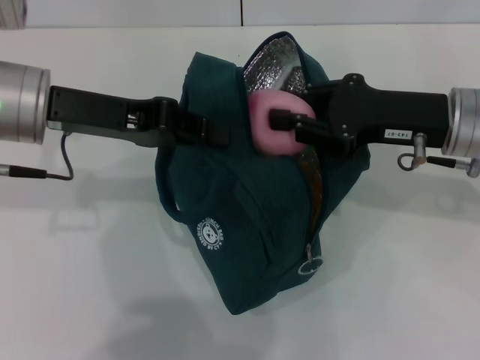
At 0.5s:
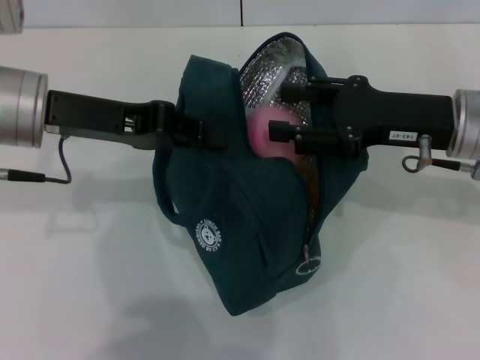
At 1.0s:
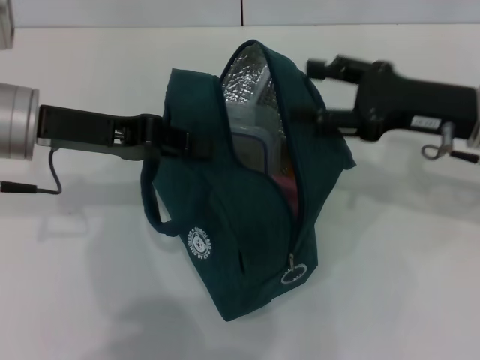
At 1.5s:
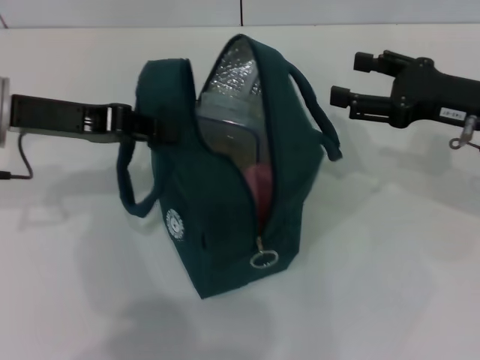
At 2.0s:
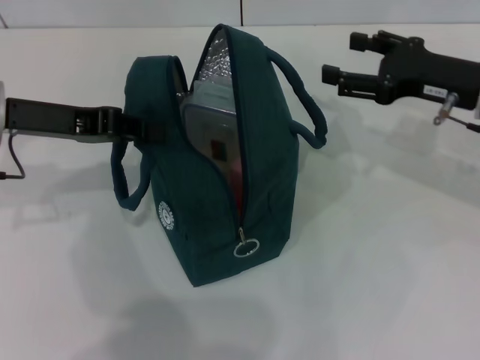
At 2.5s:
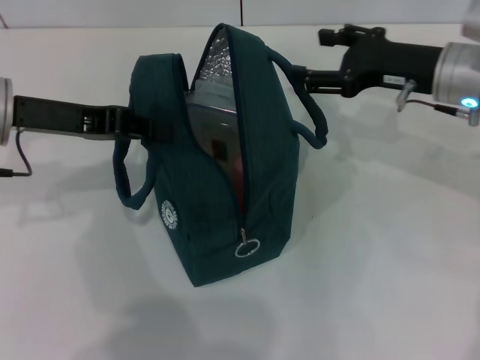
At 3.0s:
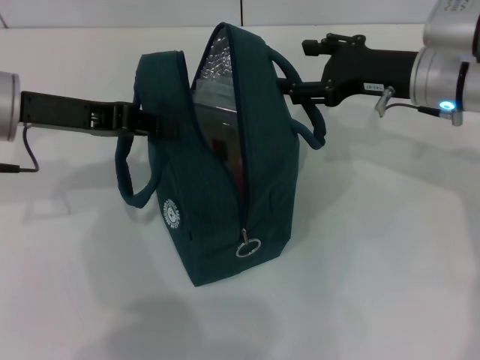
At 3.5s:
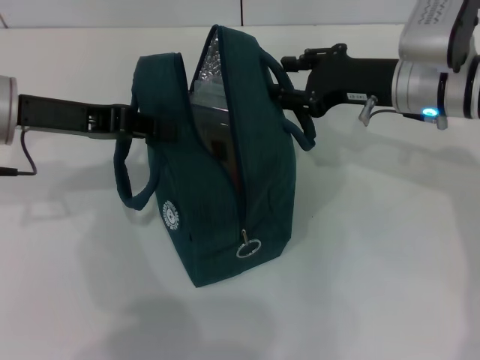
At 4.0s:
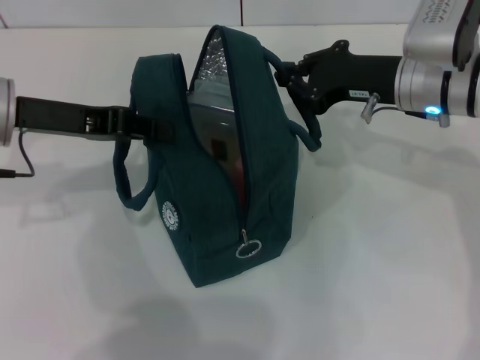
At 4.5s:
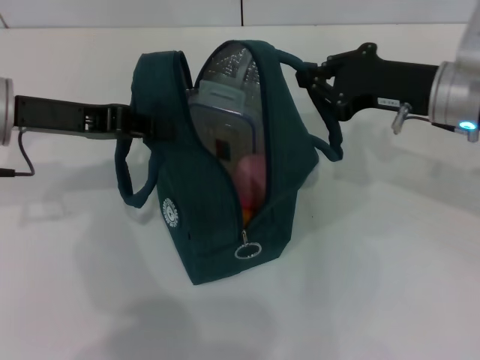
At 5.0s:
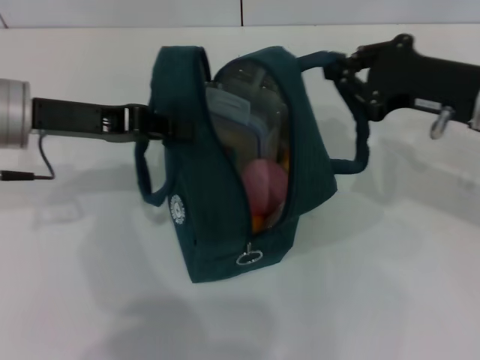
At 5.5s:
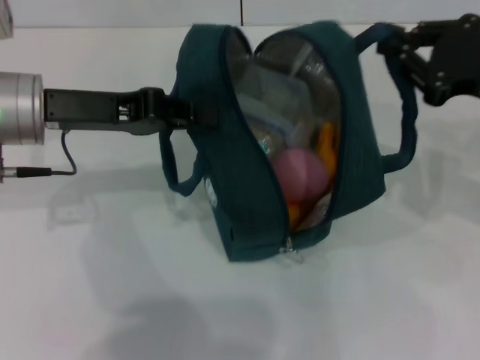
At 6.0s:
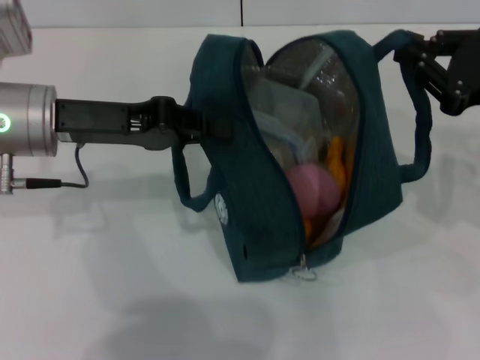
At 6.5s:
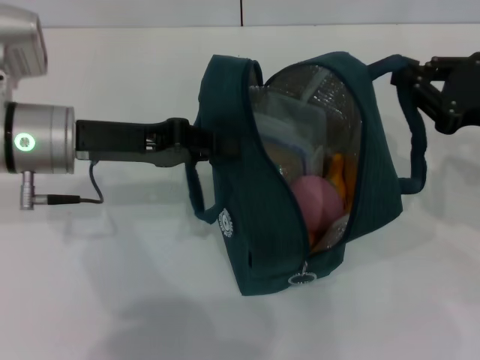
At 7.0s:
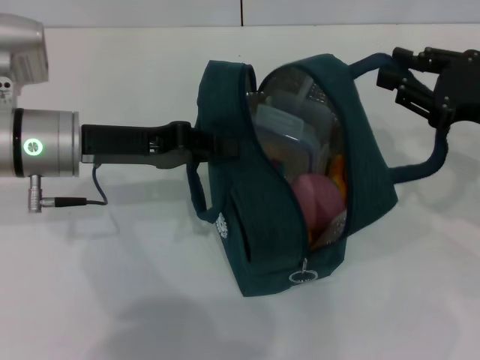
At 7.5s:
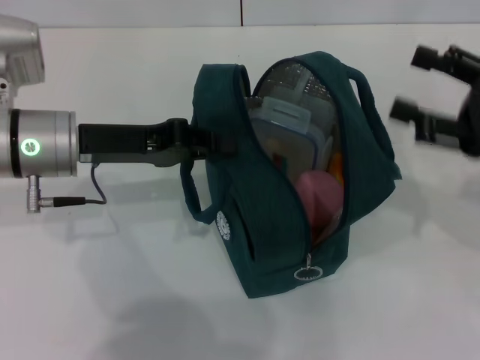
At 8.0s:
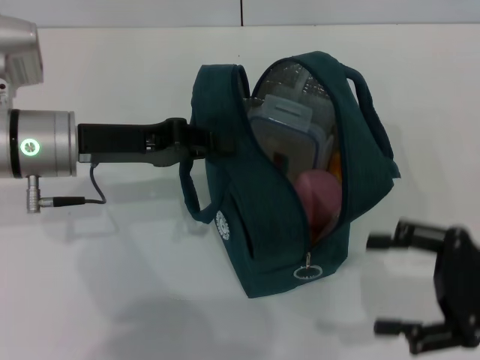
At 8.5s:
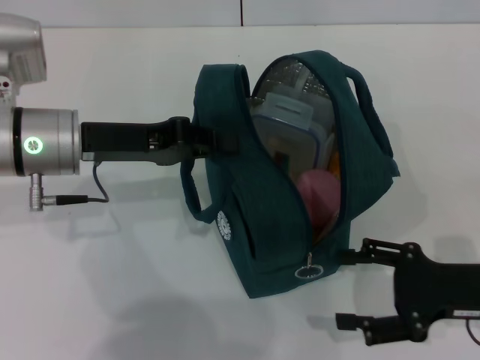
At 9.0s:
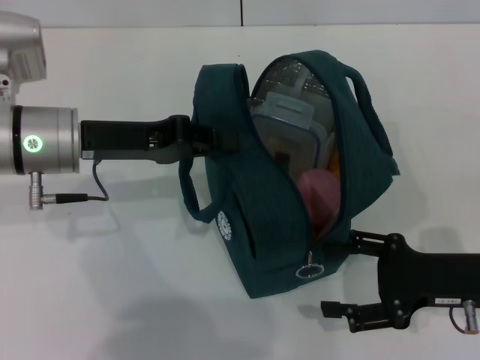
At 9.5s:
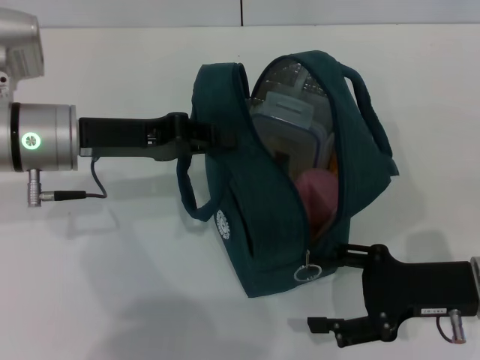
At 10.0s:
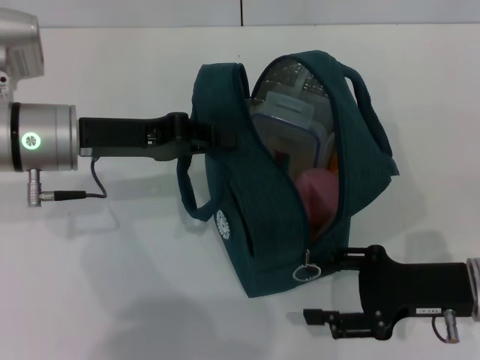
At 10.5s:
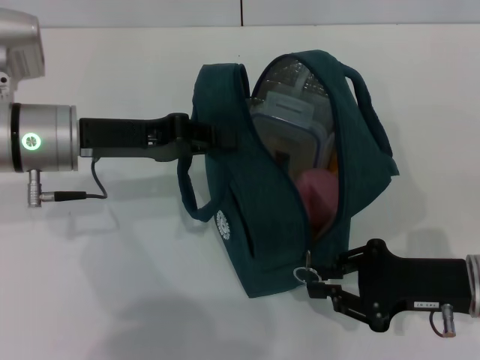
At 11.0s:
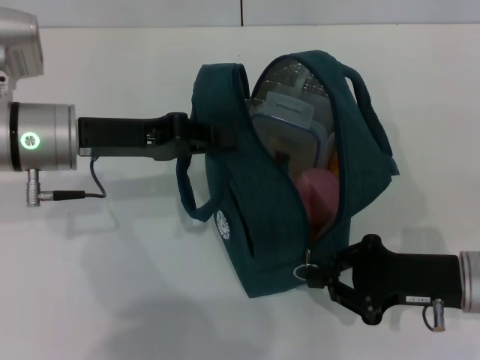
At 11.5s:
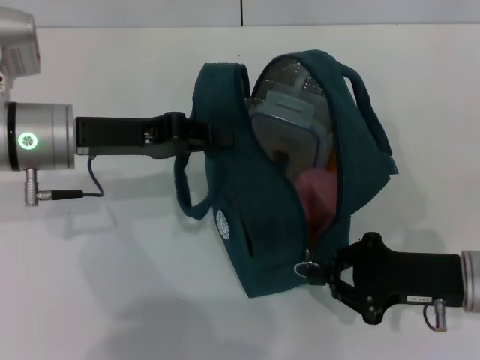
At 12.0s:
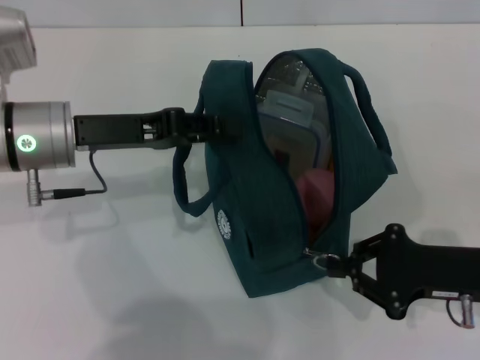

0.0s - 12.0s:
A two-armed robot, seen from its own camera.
Step, 1.0s - 7.0s: Hold the lunch bag with your right hand.
0.0s - 2.0s: The left gripper ends up roughly 5 cm from where it was. Meanwhile the right gripper moves about 5 cm, and opens its fingers.
2.0s - 4.0s: The right gripper travels to the left by approximately 5 cm, and closes up.
4.0s - 6.0s: The right gripper is displaced to the right and backward by about 15 cm.
6.0s - 8.0s: The right gripper heads backward and downward, covering about 10 cm, and opens its fingers.
8.0s - 10.0s: The right gripper travels downward by roughly 5 cm.
10.0s - 12.0s: The right gripper closes.

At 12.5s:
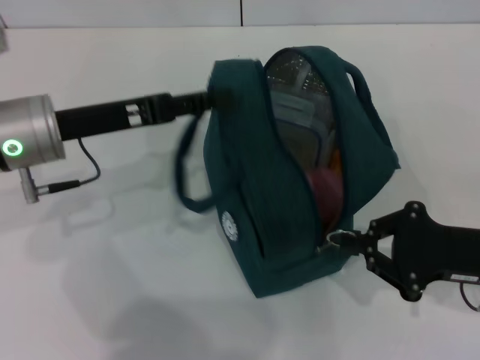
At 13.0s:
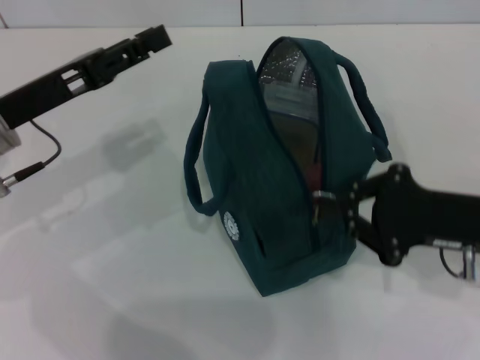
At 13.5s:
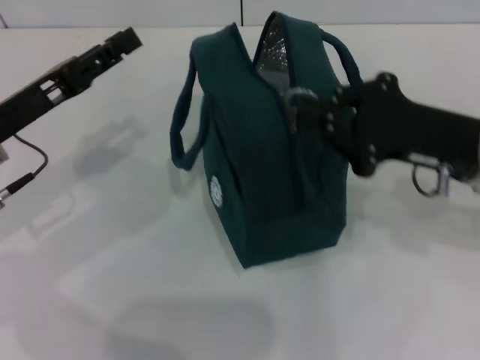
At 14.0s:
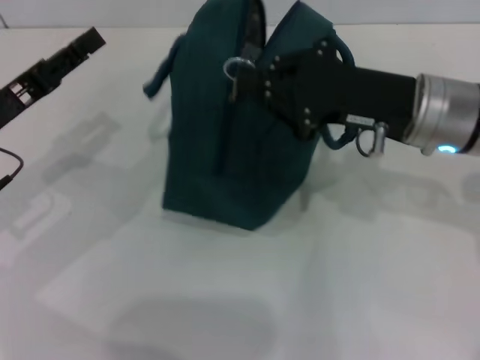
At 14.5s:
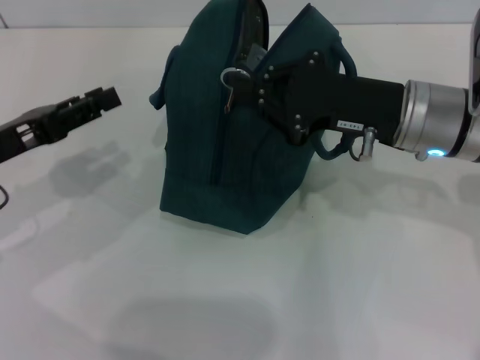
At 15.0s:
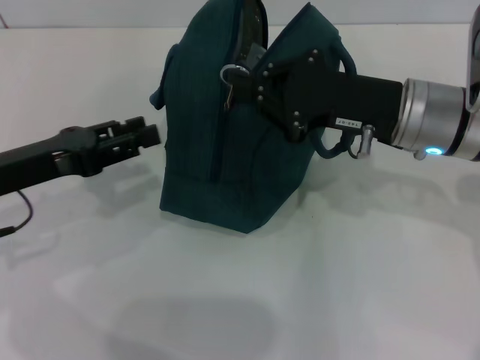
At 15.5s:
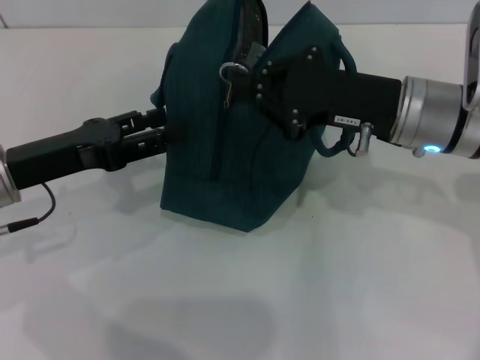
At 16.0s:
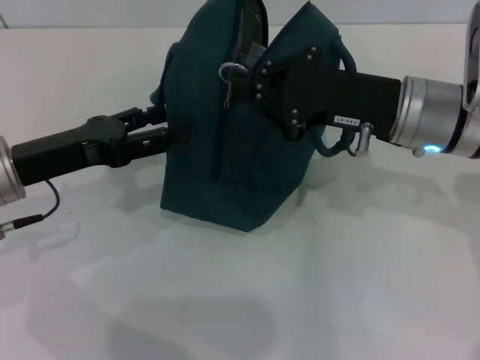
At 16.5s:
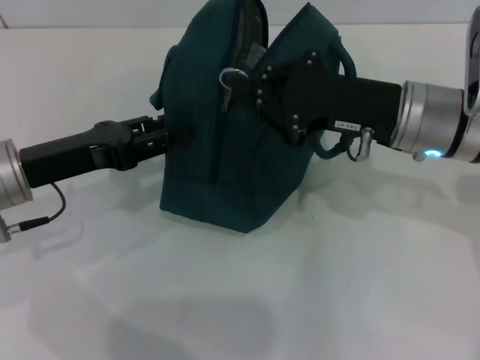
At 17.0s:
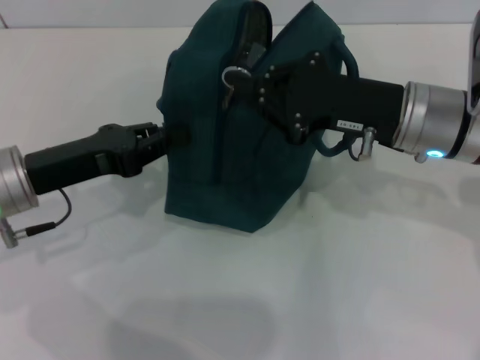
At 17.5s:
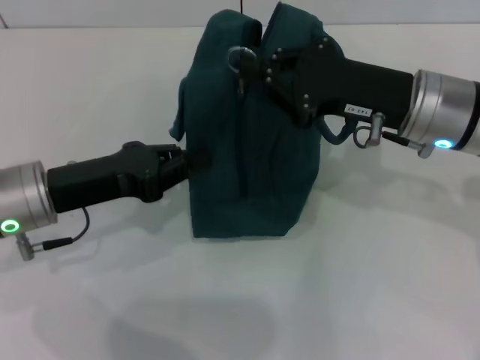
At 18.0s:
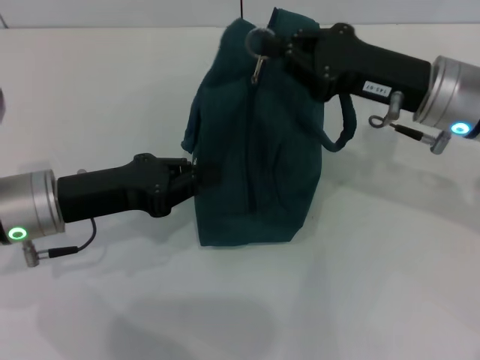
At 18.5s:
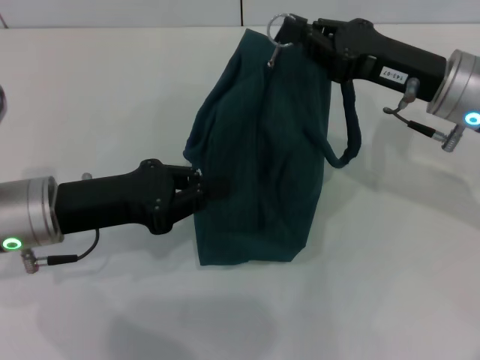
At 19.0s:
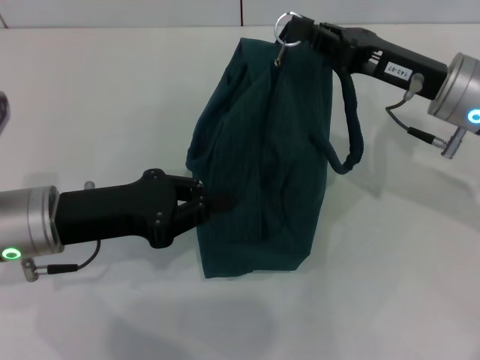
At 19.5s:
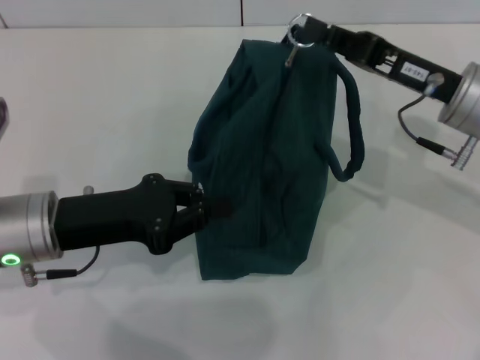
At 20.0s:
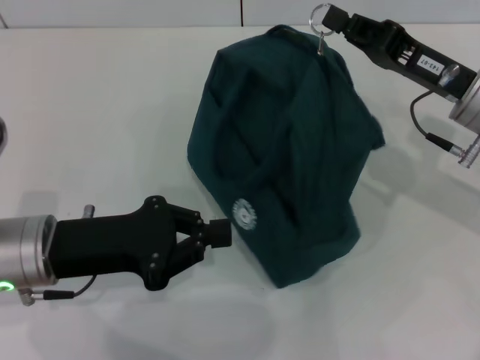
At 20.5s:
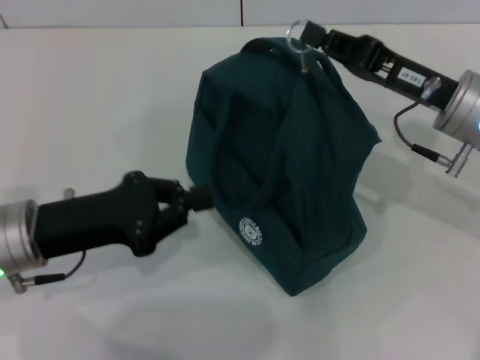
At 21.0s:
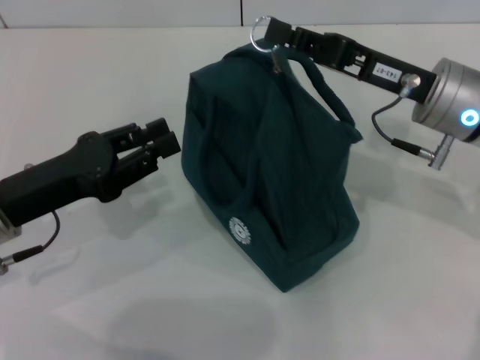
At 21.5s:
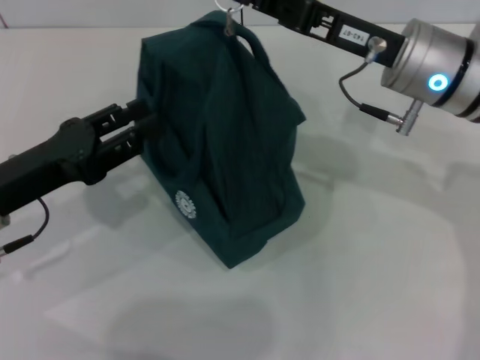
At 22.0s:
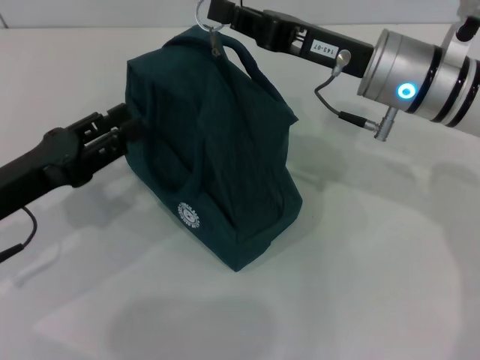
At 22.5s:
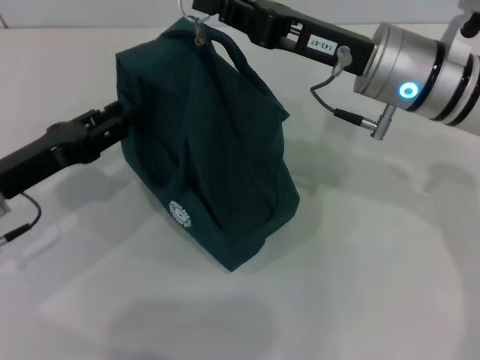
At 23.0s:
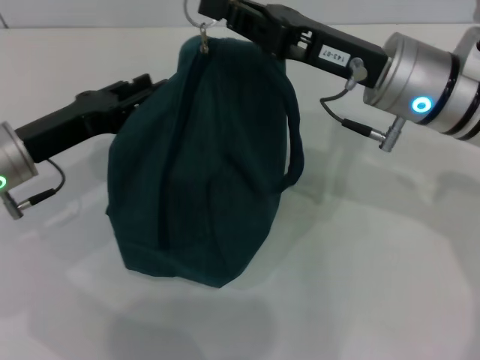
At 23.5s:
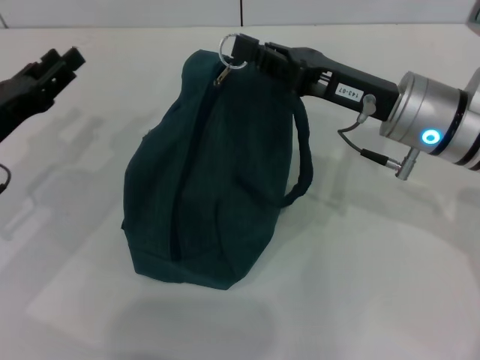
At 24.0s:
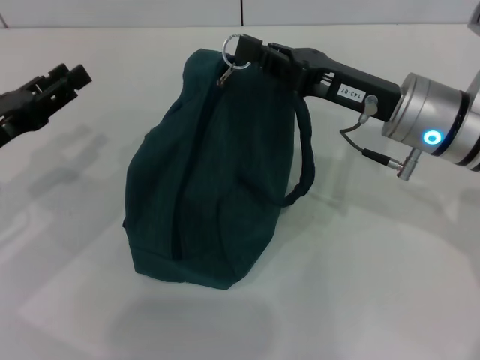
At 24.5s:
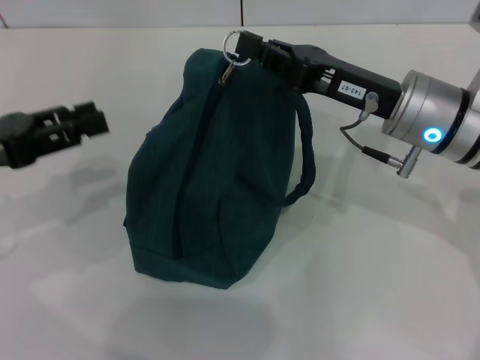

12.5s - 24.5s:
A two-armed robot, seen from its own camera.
12.5s - 14.5s: The left gripper heads to the left, covering roughly 10 cm, while the right gripper goes roughly 15 cm to the left, forward and upward.
14.5s - 16.5s: The left gripper ends up approximately 5 cm from where it was.
16.5s - 18.5s: The left gripper closes.
20.5s - 22.5s: The right gripper goes approximately 10 cm to the left. The left gripper moves roughly 5 cm, and opens its fingers.
22.5s - 24.5s: The left gripper goes about 5 cm upward.

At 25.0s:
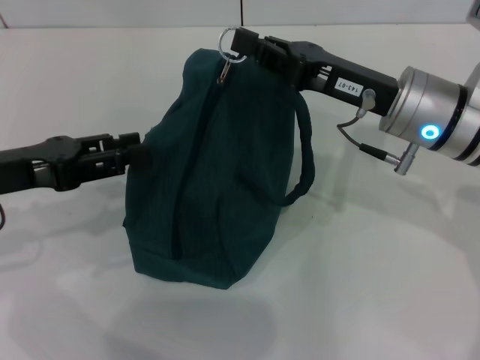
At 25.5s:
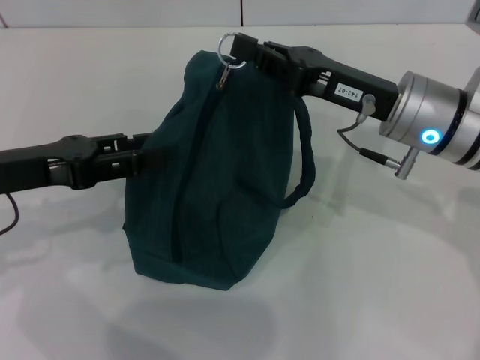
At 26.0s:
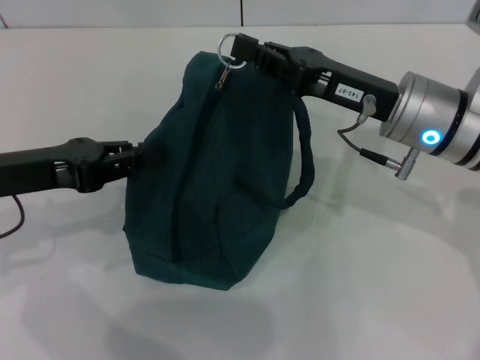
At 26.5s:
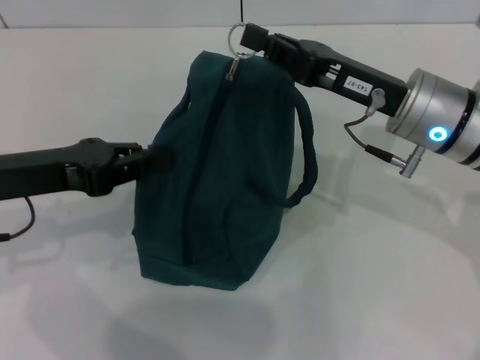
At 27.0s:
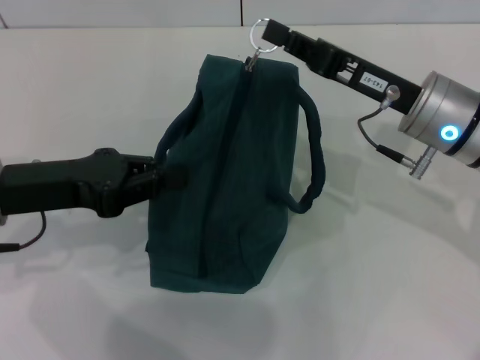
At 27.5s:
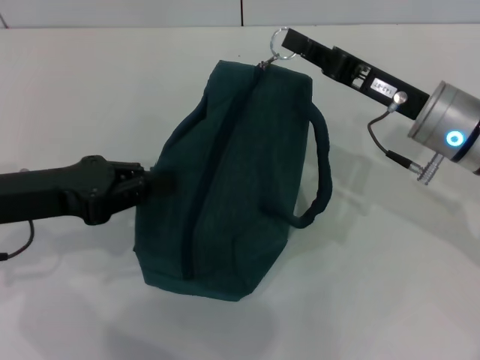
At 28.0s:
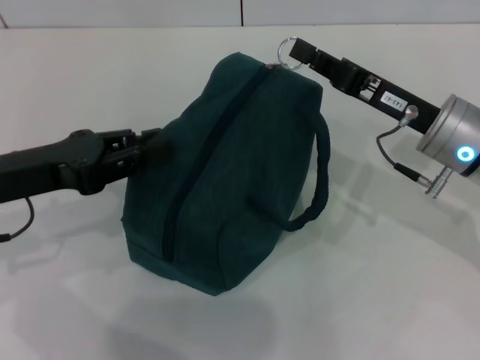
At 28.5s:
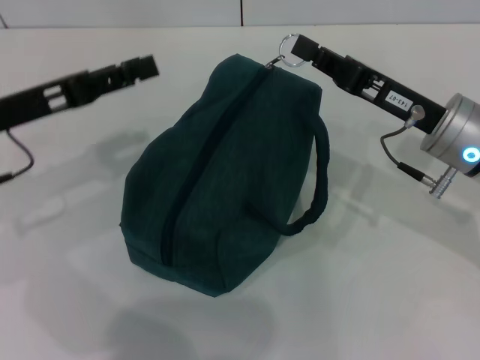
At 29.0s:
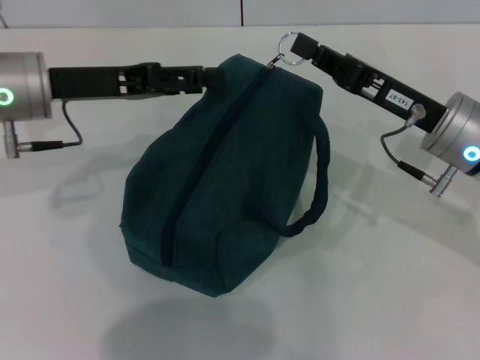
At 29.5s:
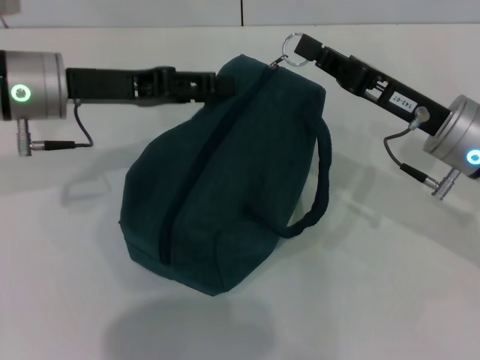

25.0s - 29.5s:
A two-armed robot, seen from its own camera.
25.0s - 27.0s: The left gripper closes up.
27.0s - 29.5s: The left gripper moves forward, roughly 10 cm, and opens.
